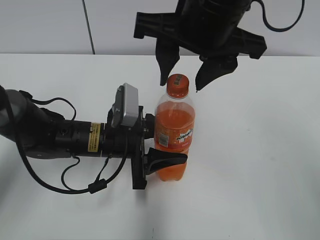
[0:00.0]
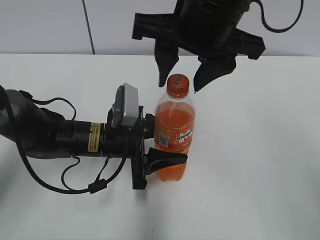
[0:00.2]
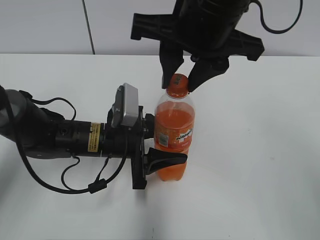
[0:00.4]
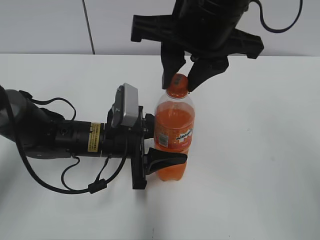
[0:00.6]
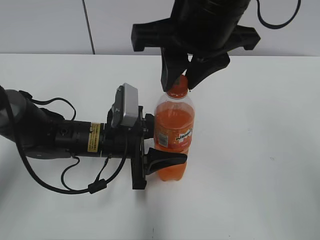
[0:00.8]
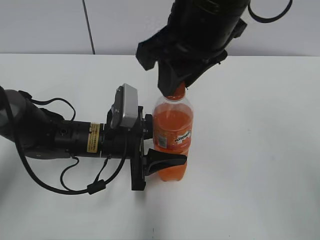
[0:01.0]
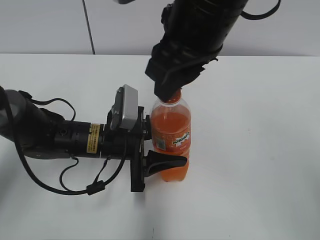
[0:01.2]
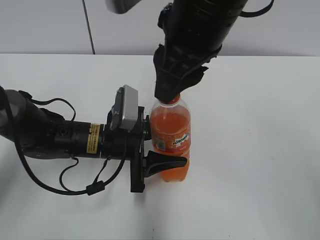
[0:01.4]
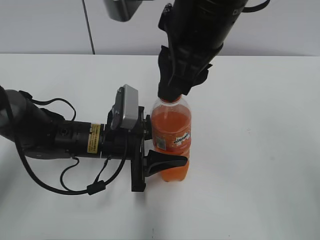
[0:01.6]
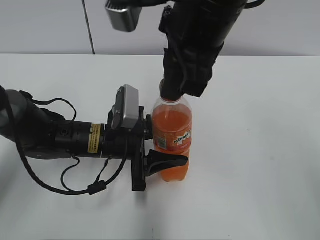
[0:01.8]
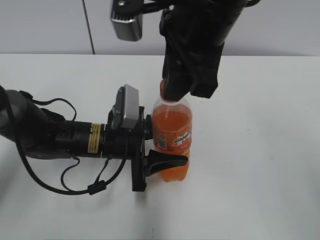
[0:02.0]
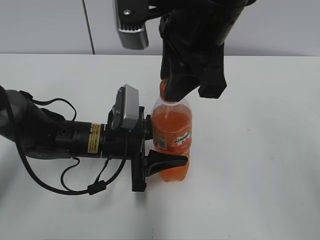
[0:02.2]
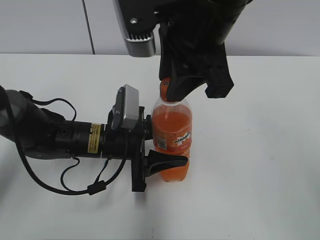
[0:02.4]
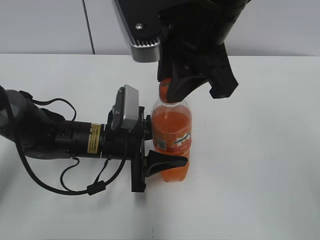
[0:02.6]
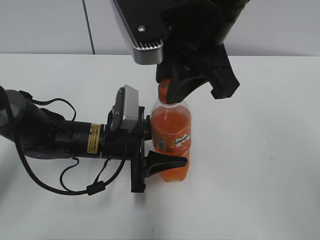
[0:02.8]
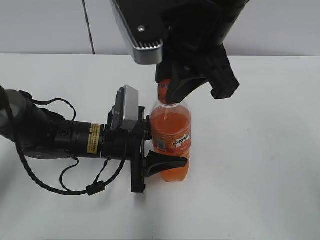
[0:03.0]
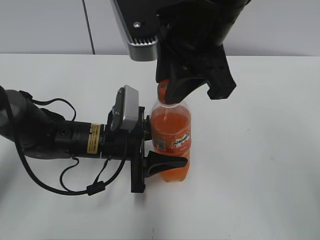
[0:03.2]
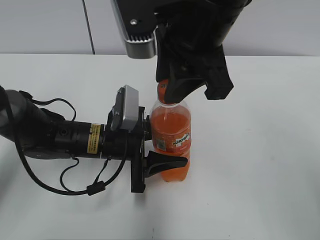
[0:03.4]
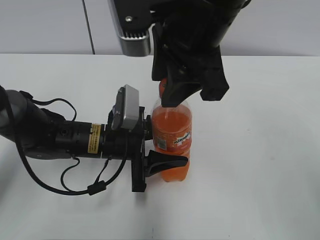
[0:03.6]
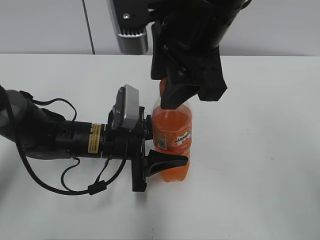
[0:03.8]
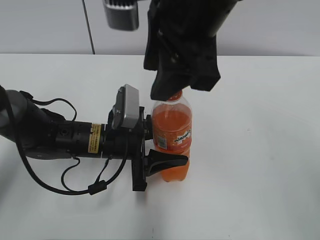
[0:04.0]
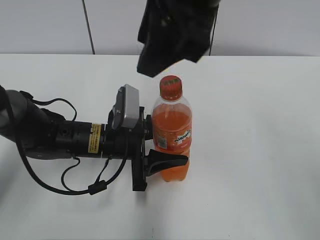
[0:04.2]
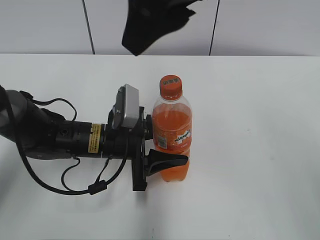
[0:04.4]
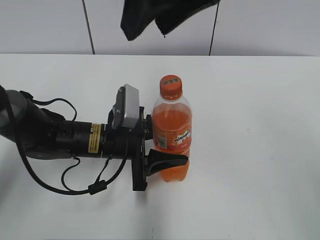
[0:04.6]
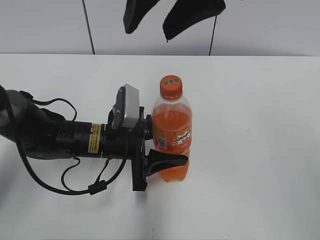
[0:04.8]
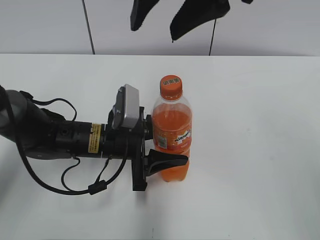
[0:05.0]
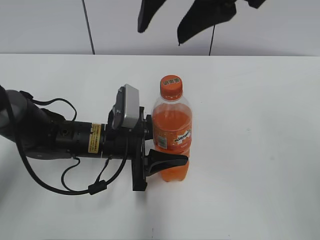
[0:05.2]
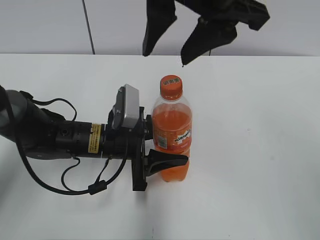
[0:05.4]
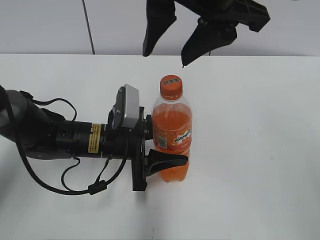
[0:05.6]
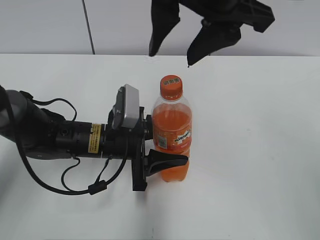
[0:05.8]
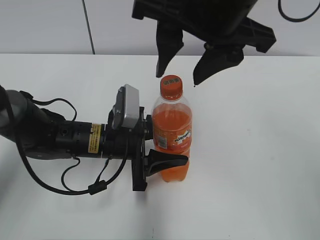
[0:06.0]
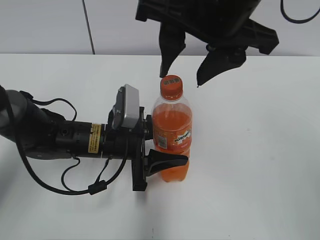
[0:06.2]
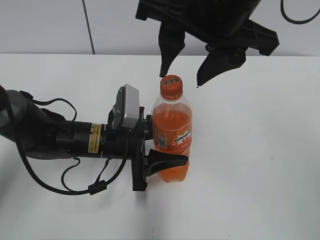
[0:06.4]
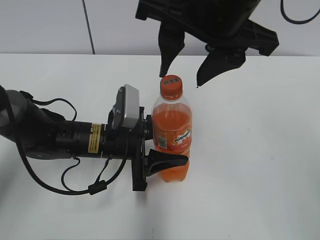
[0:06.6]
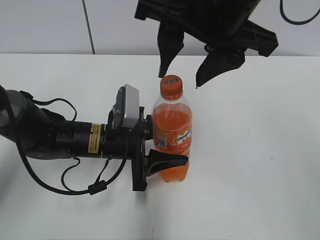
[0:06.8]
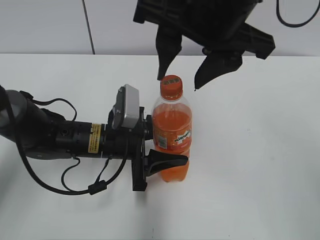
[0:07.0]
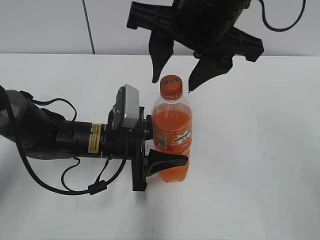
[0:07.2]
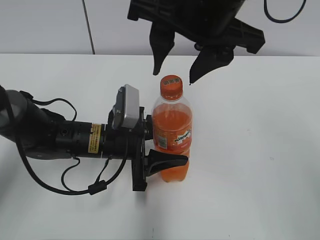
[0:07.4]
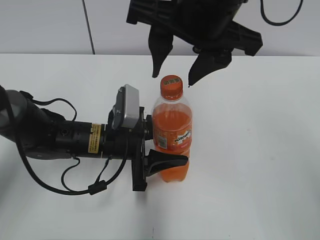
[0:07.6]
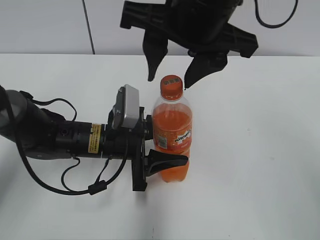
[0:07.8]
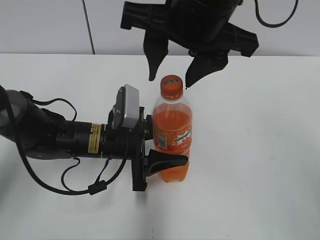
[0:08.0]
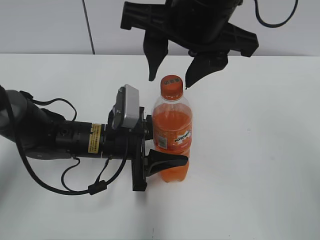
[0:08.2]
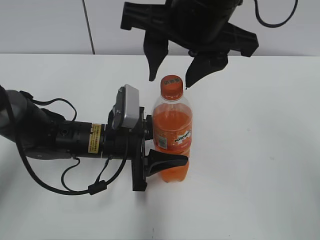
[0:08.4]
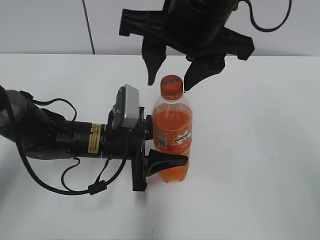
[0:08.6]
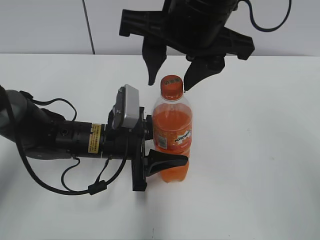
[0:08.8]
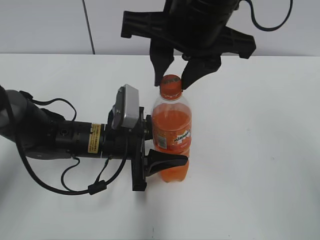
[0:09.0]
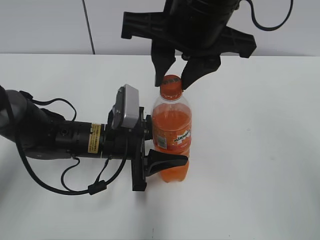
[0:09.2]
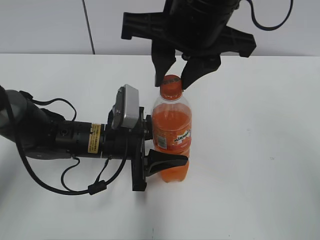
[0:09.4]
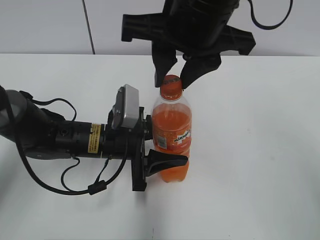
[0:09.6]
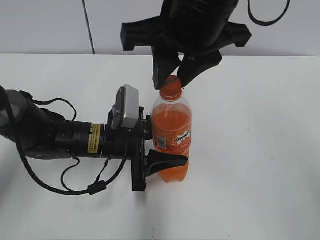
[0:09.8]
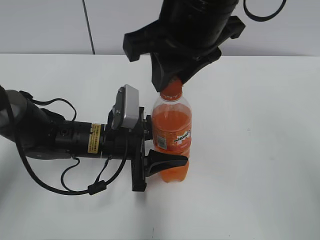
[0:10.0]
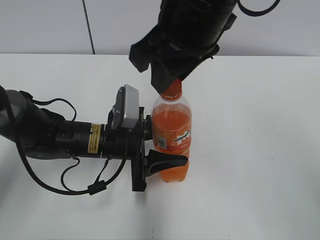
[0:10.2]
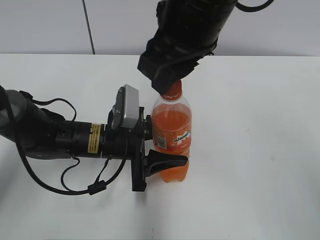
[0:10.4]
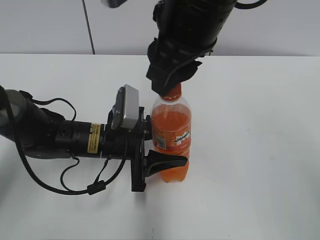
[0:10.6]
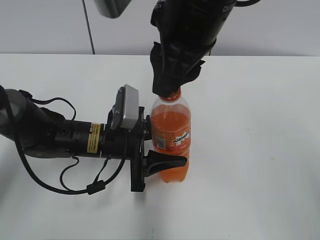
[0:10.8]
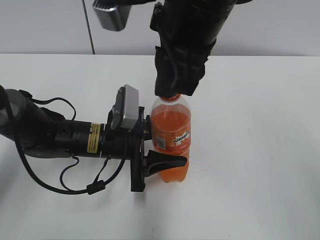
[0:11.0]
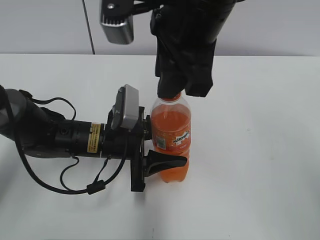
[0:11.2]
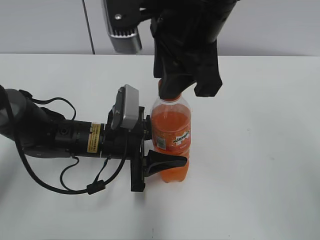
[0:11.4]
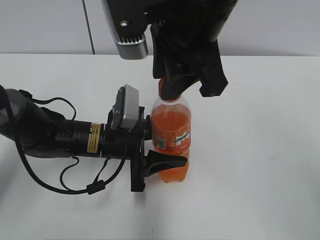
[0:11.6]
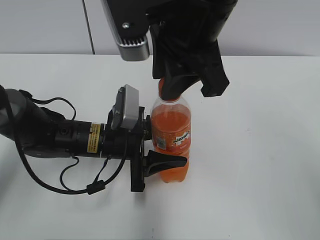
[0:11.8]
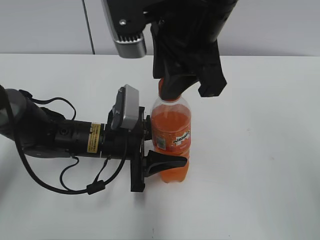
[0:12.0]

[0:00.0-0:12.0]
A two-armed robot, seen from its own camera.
0:00.0 to 0:01.6: The right gripper closes.
0:03.0 to 0:04.4: The right gripper goes approximately 5 cm upward, and opens its fingers.
0:06.0 to 0:07.6: The grippers move only a little.
0:07.6 to 0:09.0: The right gripper closes its fingers.

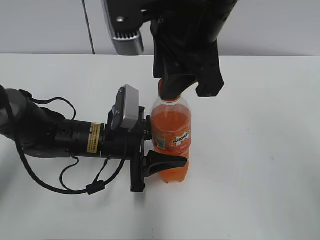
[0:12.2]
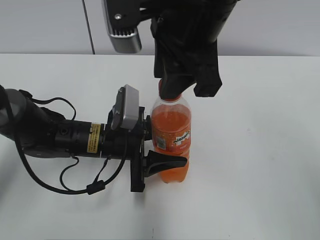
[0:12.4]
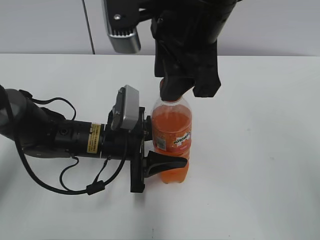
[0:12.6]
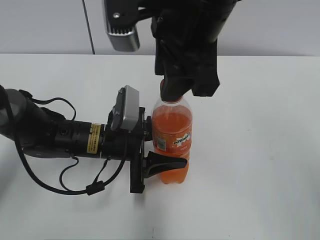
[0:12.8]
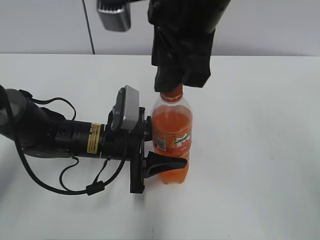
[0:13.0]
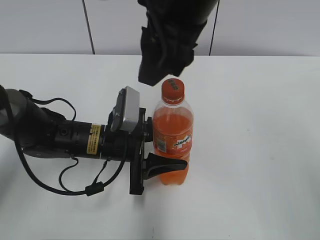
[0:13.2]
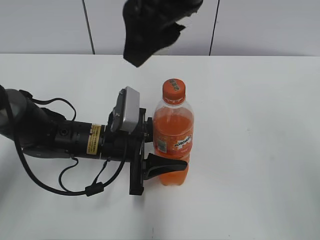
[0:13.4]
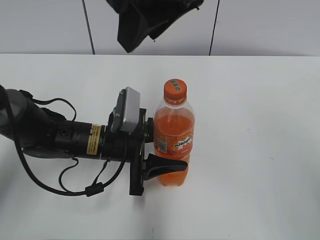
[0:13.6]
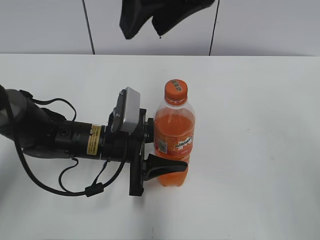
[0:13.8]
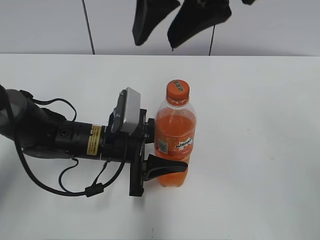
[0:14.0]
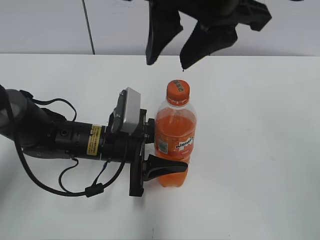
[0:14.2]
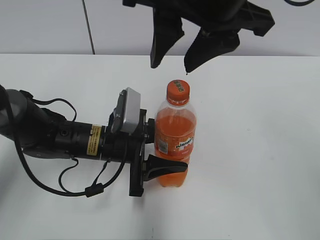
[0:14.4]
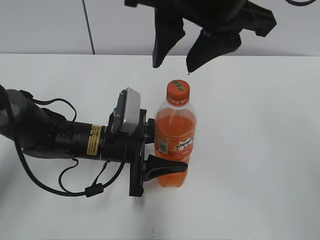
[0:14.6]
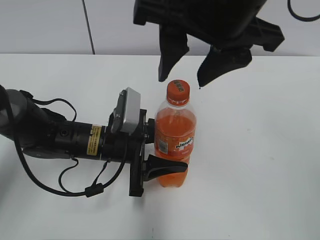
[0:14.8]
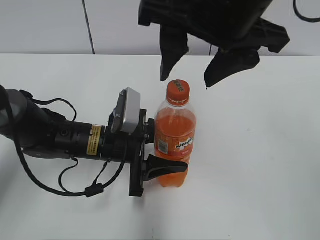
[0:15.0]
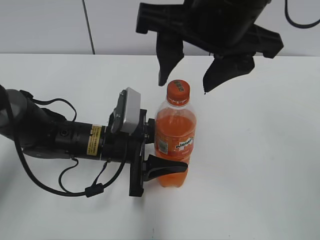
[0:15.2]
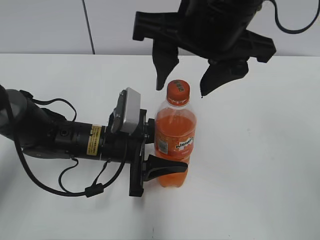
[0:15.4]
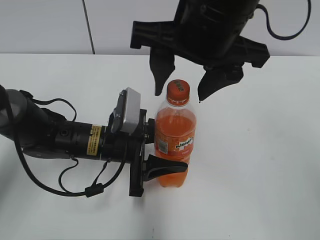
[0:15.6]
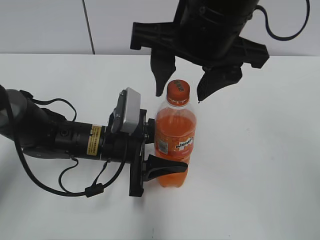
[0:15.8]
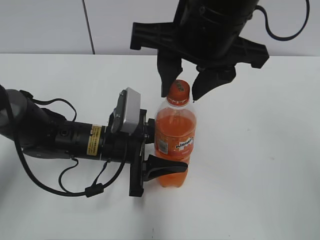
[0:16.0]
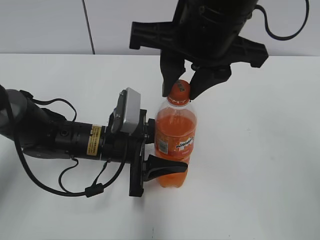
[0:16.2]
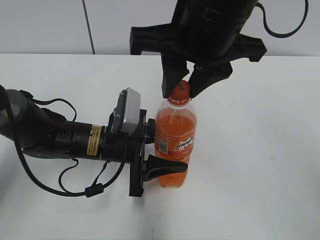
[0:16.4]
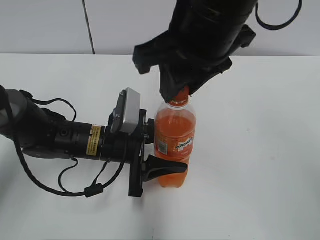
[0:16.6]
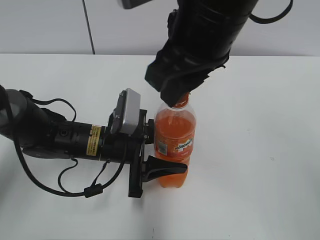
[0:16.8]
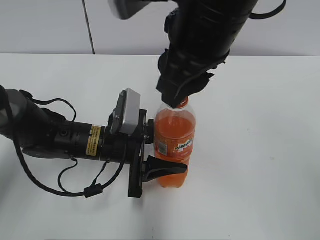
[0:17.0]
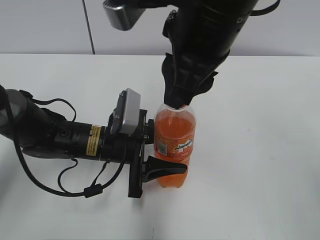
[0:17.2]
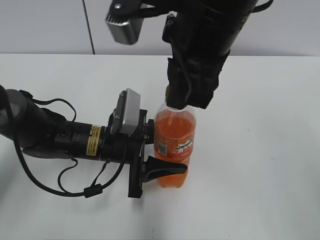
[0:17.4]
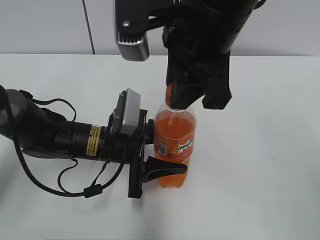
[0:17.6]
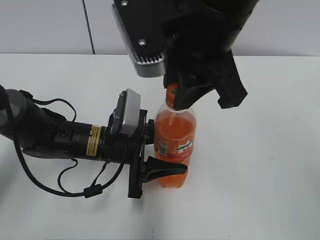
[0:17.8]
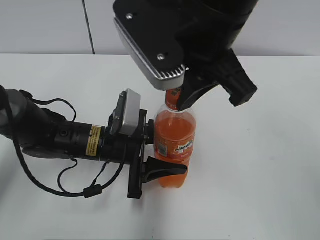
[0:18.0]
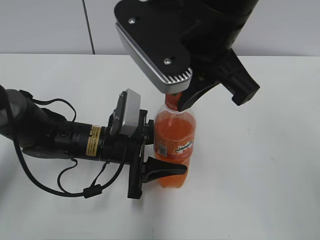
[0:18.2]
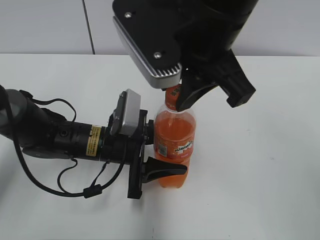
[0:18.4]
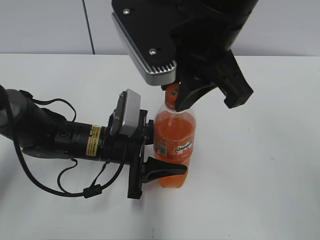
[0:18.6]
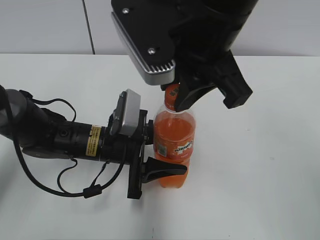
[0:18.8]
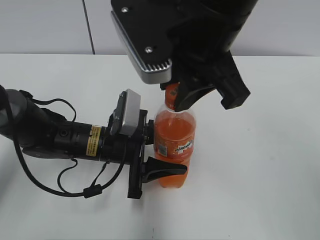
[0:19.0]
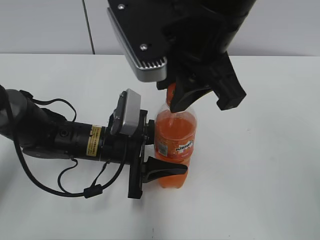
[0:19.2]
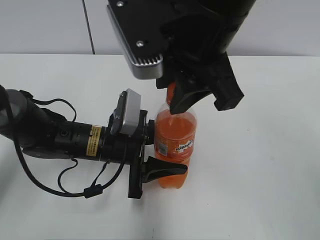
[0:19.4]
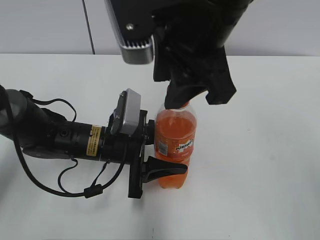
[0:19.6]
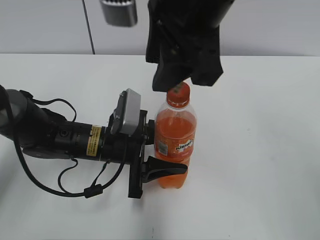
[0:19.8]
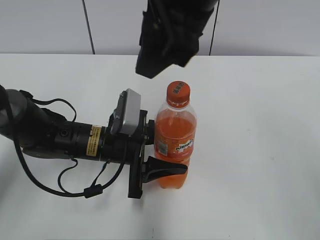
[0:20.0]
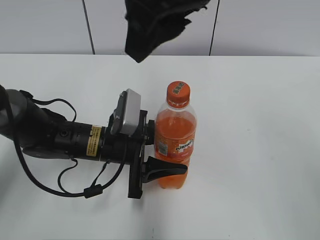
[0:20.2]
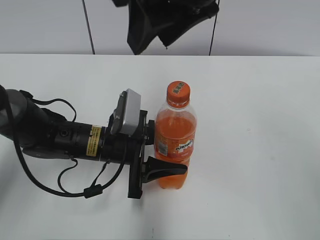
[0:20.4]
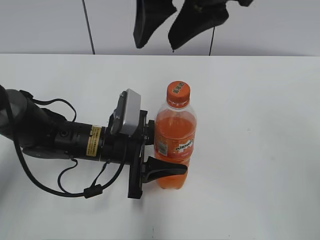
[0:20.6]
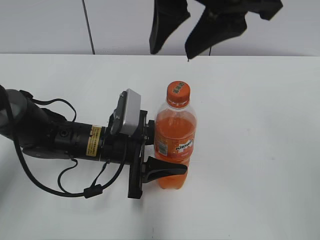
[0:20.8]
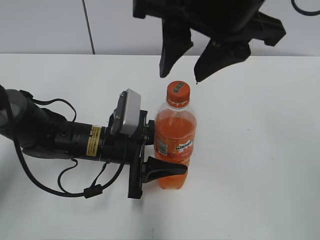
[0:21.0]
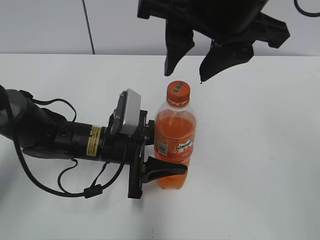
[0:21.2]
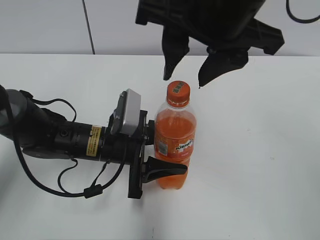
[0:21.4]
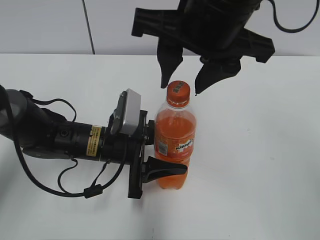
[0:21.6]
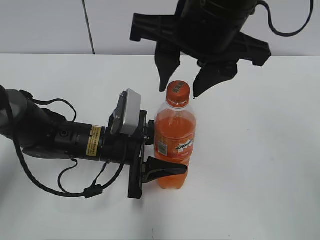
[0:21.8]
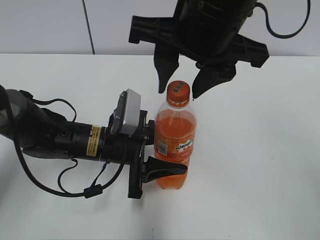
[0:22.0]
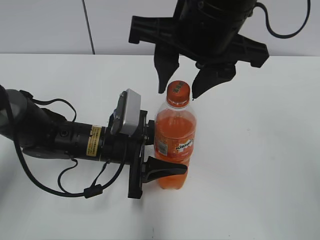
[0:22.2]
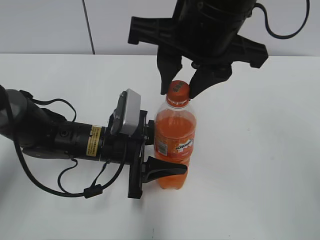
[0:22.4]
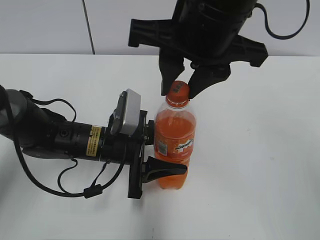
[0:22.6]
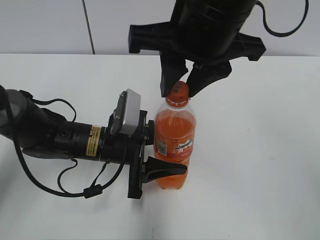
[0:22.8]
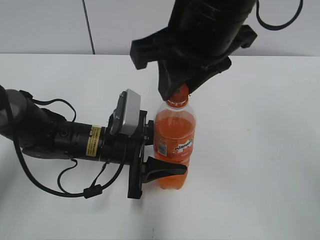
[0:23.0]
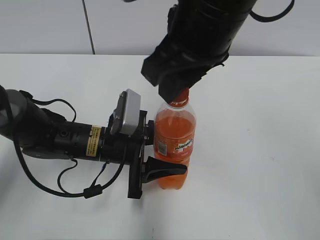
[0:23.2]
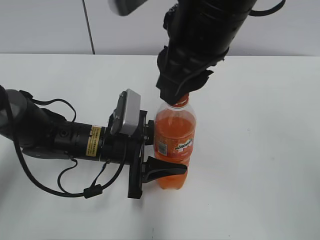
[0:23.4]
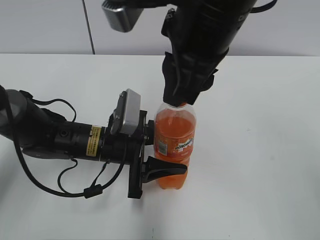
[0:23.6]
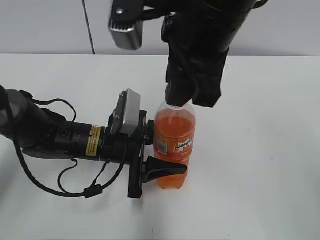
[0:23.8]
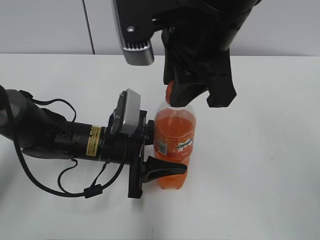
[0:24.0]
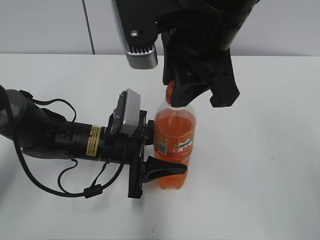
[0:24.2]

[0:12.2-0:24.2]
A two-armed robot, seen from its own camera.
0:12.2 to 0:13.8: The right gripper travels upward by approximately 5 cm.
0:13.8 to 0:15.2: The right gripper changes place by approximately 5 cm, and opens up.
0:15.2 to 0:16.6: The right gripper closes.
0:18.2 to 0:19.8: The right gripper opens.
0:21.2 to 0:22.6: The right gripper closes its fingers.
